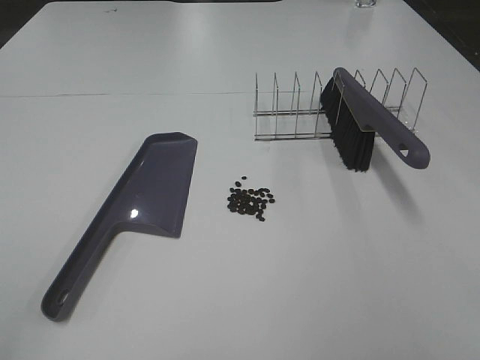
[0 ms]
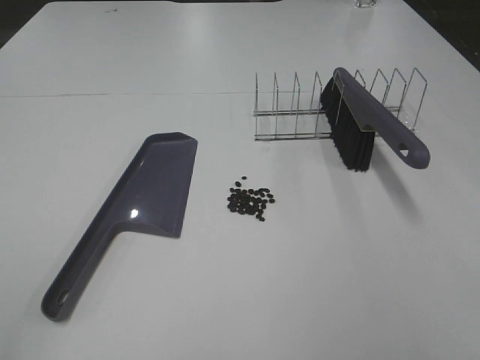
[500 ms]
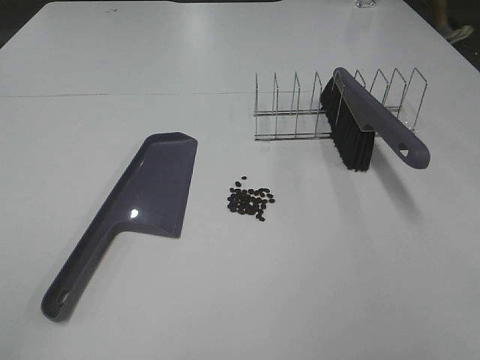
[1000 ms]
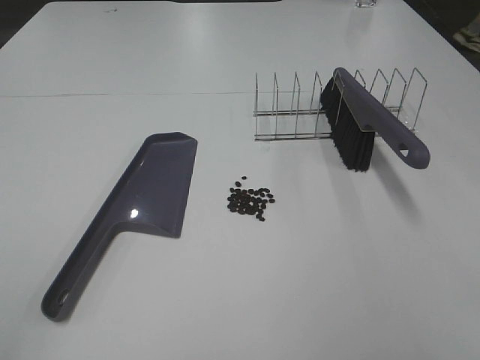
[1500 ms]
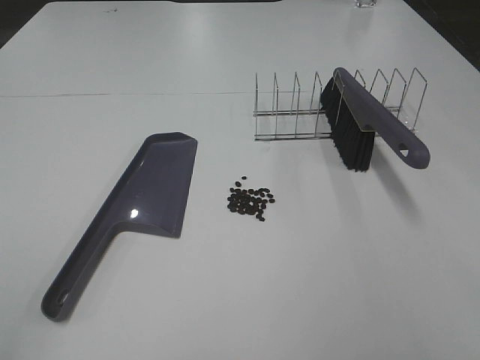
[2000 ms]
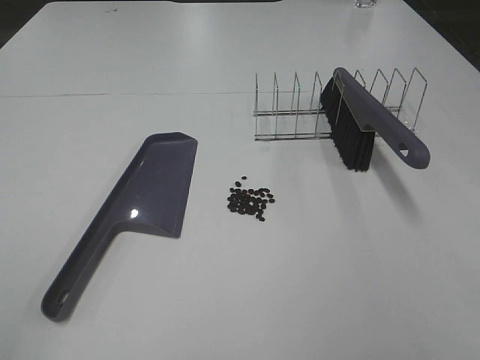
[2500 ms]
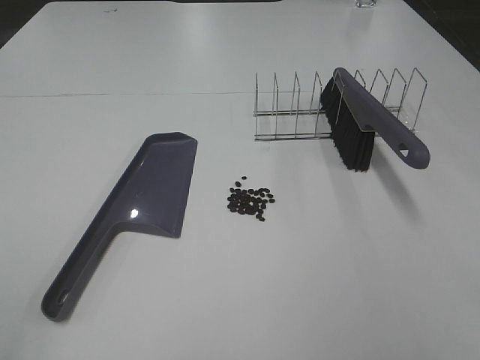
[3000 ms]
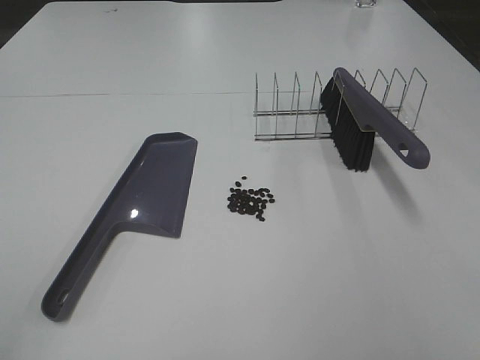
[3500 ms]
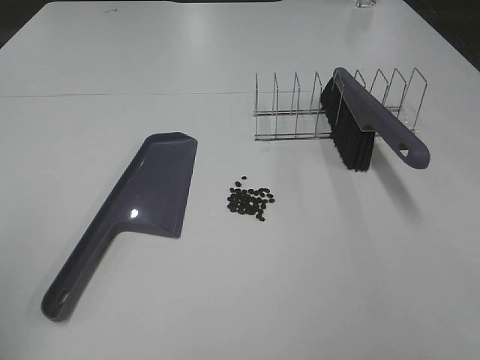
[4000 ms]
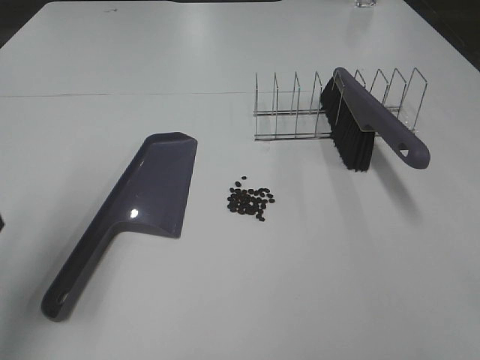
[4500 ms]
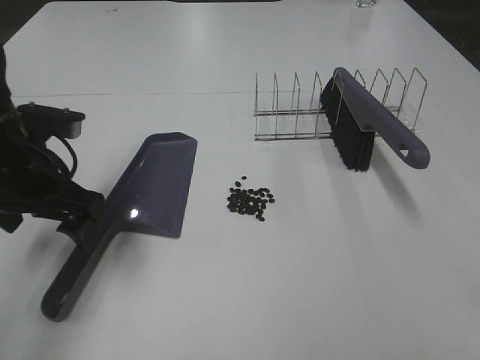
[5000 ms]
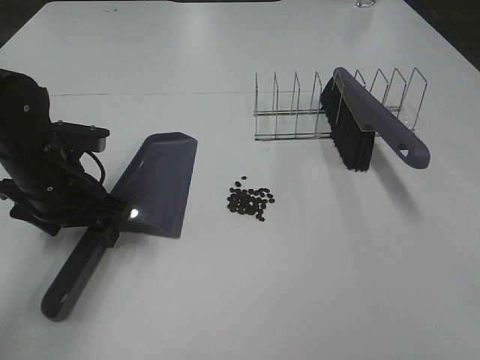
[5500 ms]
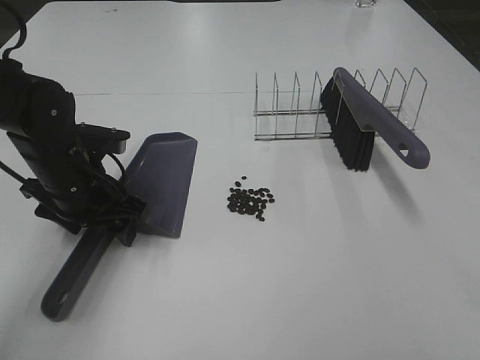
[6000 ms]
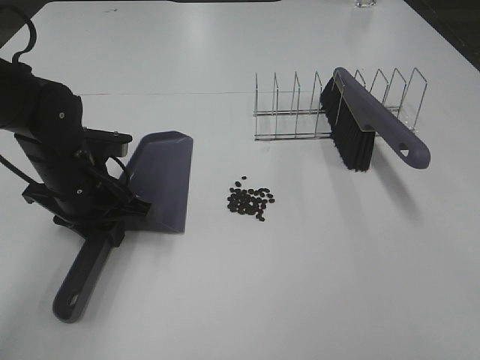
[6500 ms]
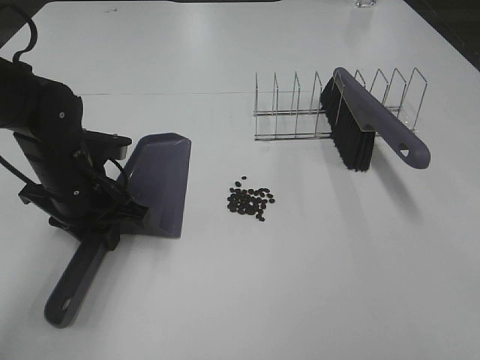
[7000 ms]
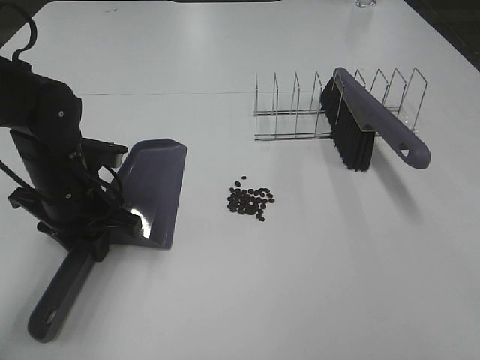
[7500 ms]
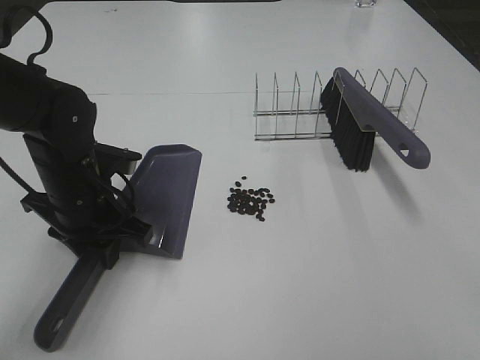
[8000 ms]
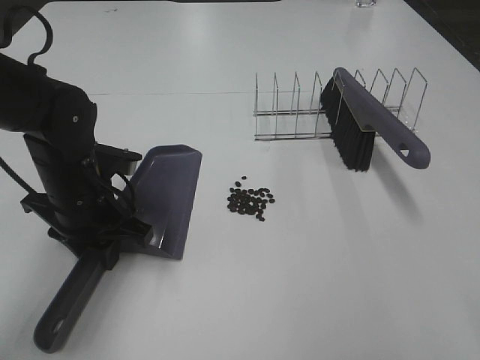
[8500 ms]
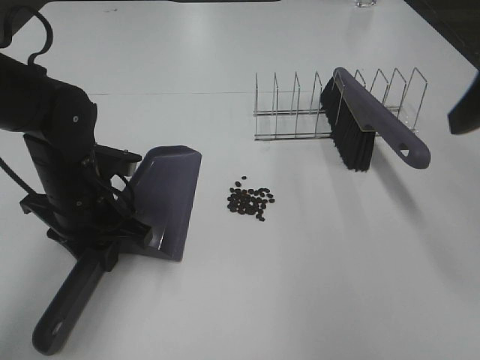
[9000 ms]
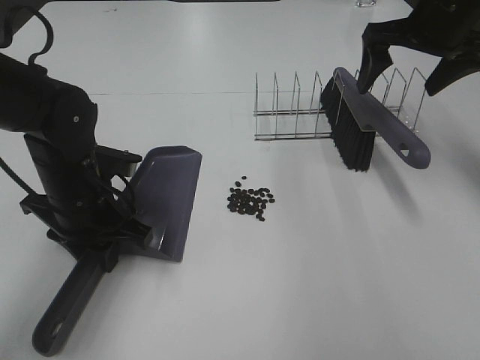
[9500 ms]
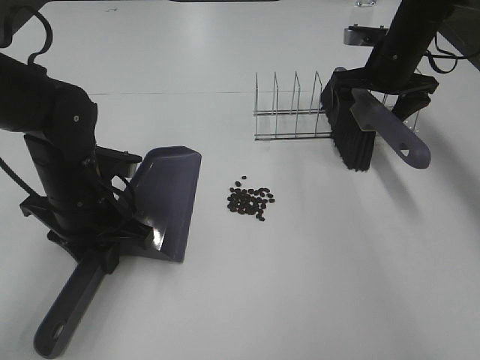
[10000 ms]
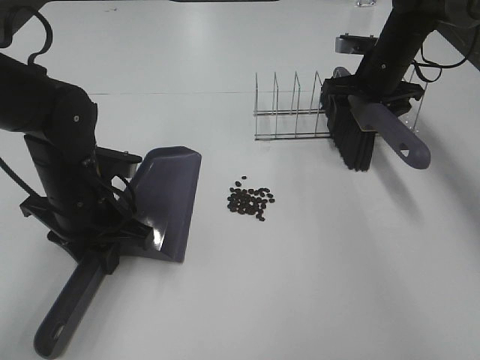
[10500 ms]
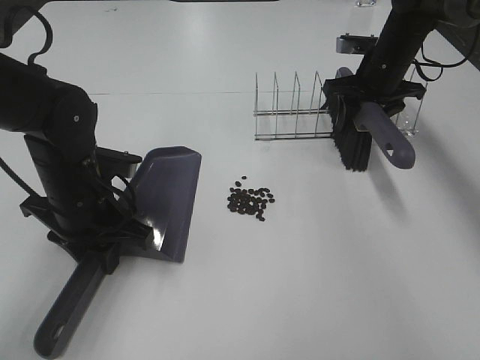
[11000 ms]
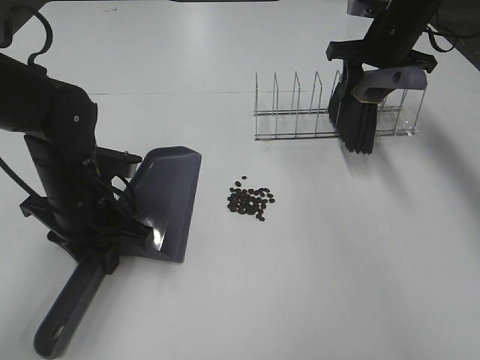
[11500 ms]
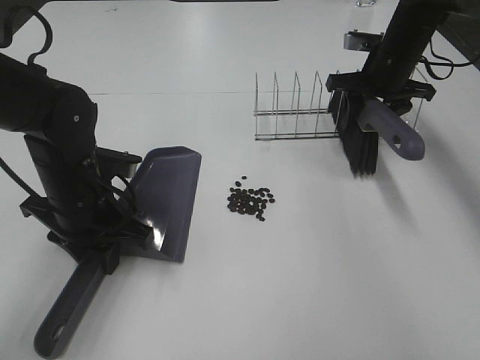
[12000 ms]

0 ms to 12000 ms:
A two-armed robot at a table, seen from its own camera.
Task of the whole recording: Sweep Coffee Bean.
Step, 0 ms to 6500 ms: Left hand: grab the dustpan.
Step, 7500 ms to 10500 ms: Right hand:grab the broom.
0 ms to 2000 ms: Both grippers stay put.
4000 ms to 6000 ms: The left gripper is displaced forward, downward and to the right by roughly 30 cm, and closes up.
6000 ms to 8000 ms: The left gripper closes.
8000 ms to 10000 ms: The right gripper travels forward by roughly 50 cm, and opens.
10000 ms to 12000 ms: The right gripper closes its fingers.

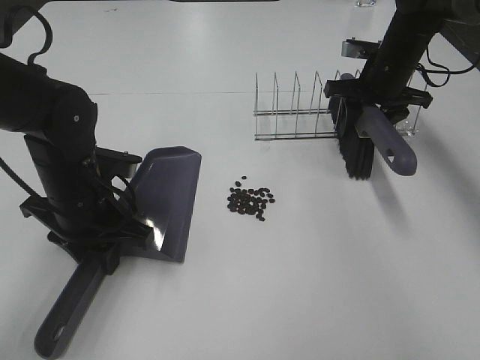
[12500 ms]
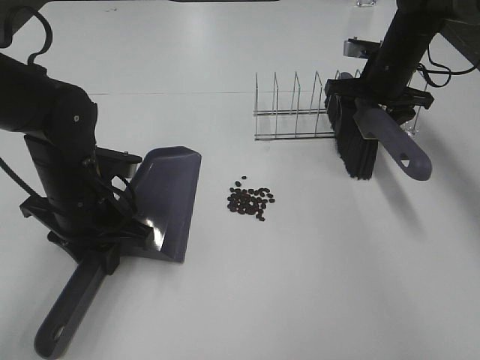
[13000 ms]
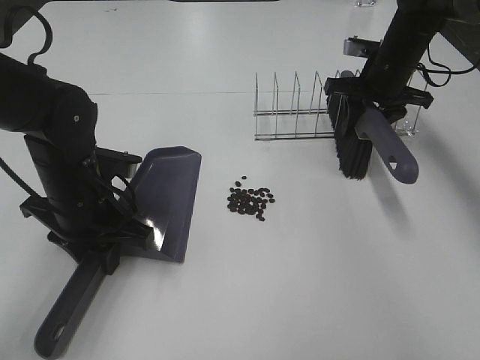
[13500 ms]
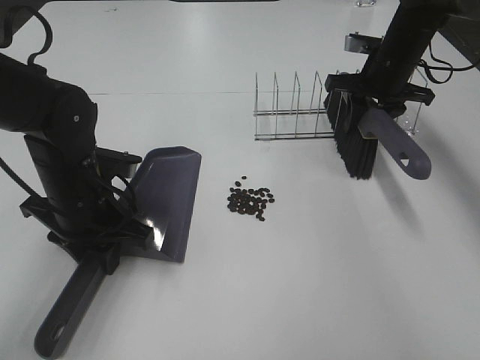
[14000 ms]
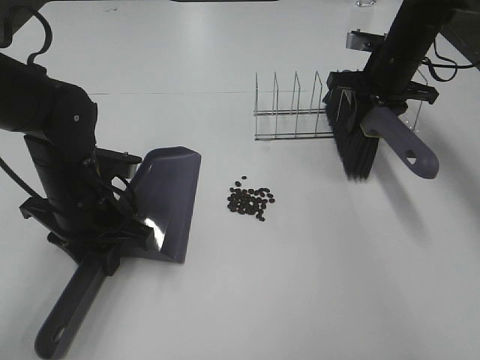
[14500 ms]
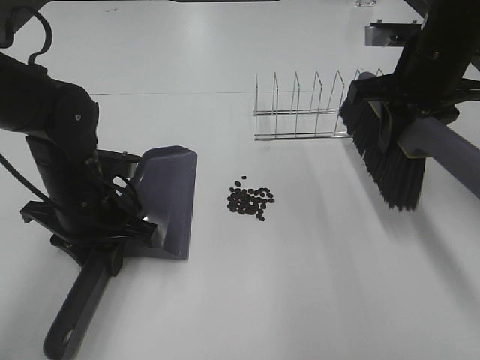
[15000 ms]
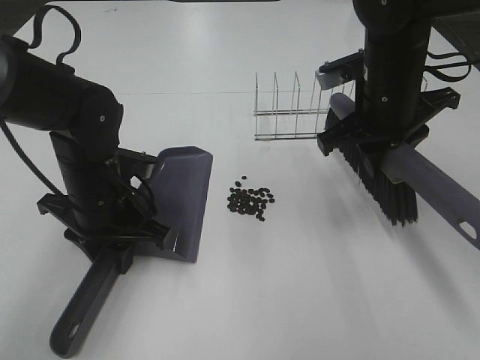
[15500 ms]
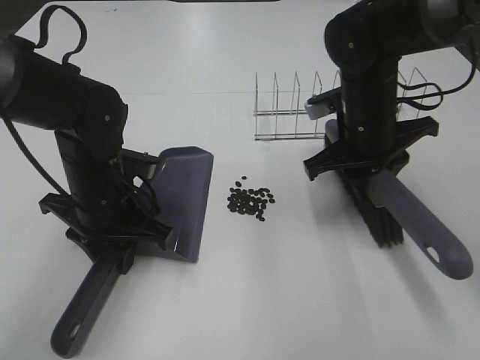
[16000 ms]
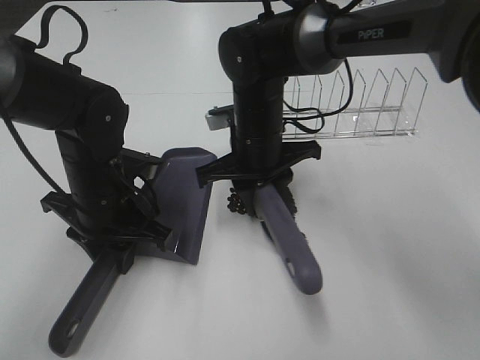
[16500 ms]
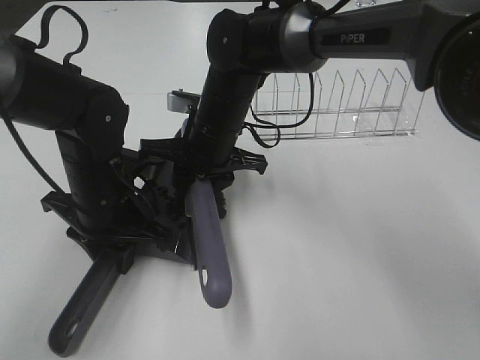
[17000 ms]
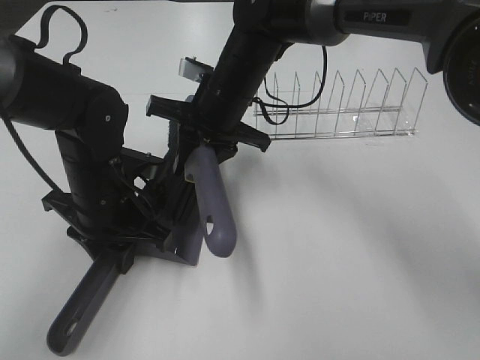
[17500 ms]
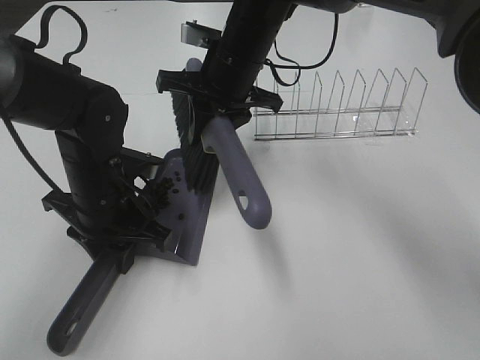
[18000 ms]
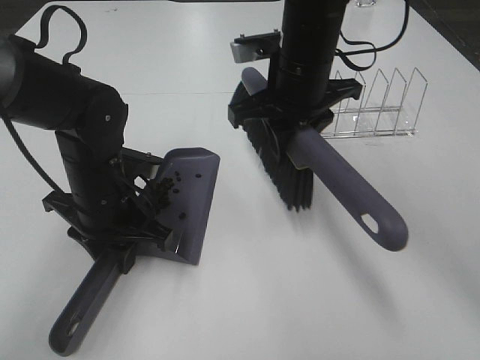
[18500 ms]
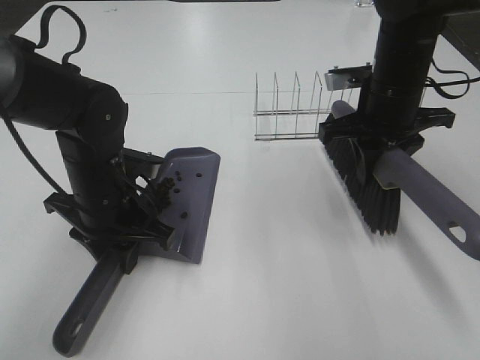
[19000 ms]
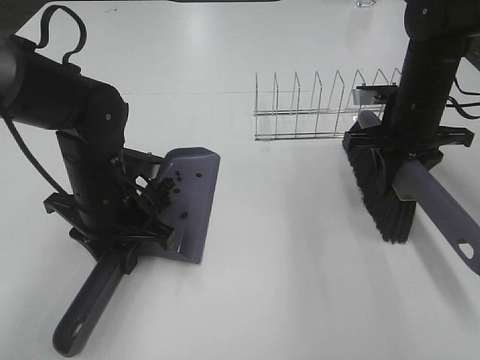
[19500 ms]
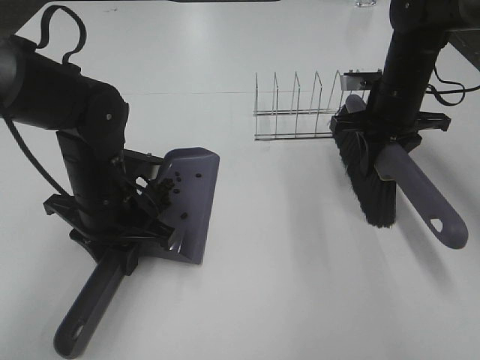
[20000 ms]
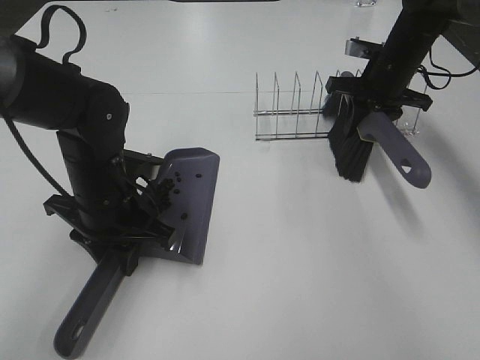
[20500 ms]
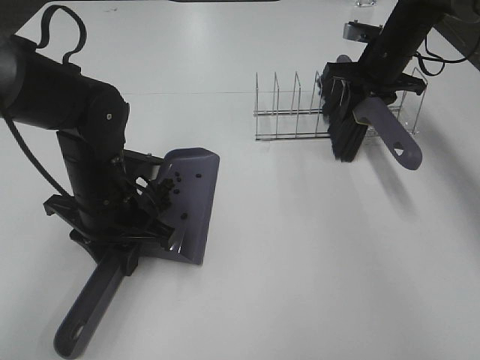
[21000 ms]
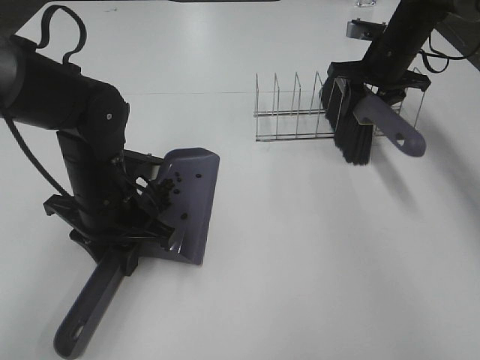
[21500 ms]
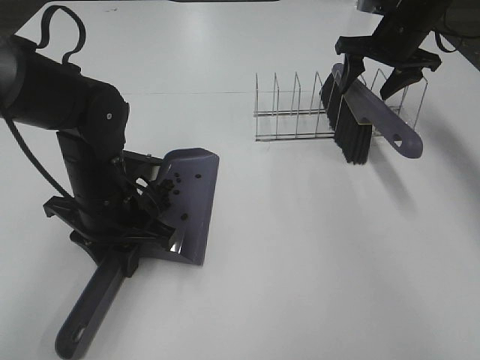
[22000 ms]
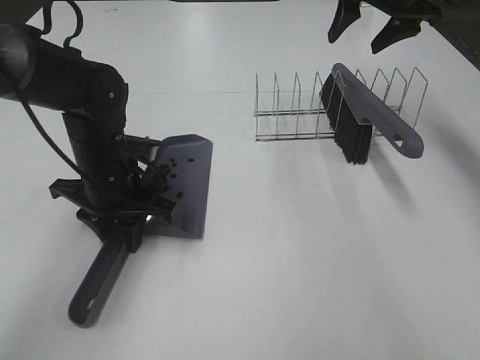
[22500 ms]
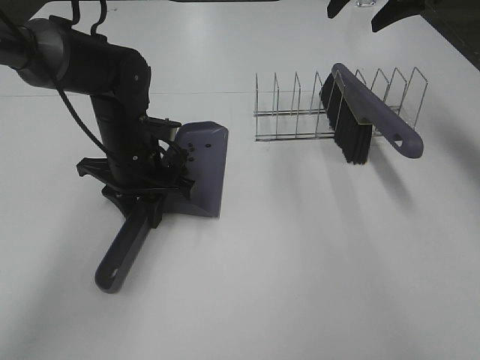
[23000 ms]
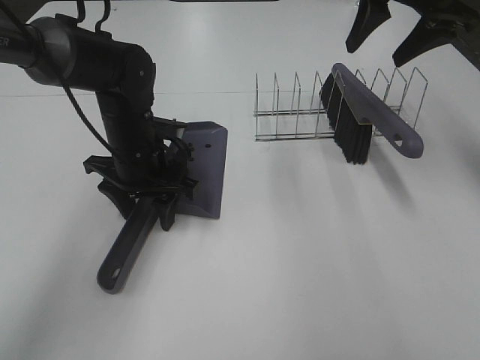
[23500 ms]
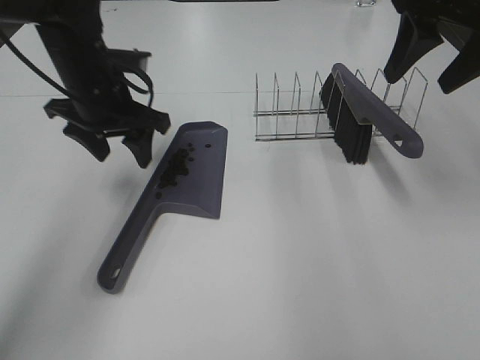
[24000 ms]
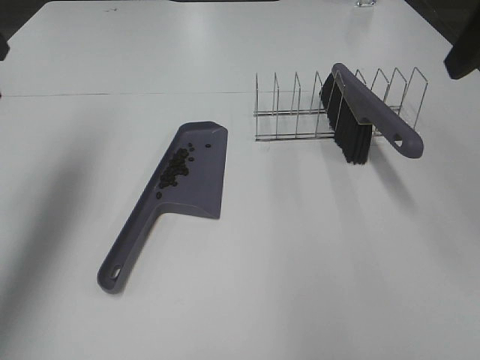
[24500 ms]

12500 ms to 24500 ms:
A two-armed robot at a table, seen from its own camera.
Task of the whole recording: Sweep Coffee Bean.
Step, 12500 ms to 17000 ms: Right hand:sweep the coffee beans into the dustpan.
Step, 17500 ms to 21500 ms: Right hand:place the broom on the rack.
Step, 22000 ms to 23500 ms: Left hand:place the dustpan on the table.
12500 ms to 14500 ms: The grippers make only small movements.
14500 ms to 16500 ms: The right gripper goes about 25 cm to the left and backward.
16500 ms to 18500 ms: The right gripper travels upward and to the right by roughly 10 cm.
18500 ms to 20500 ms: The right gripper goes about 20 cm to the right and forward.
20500 ms to 22500 ms: The right gripper shifts some 15 cm upward, and opens its fingers.
22500 ms to 24500 ms: The right gripper shifts roughly 25 cm backward. The left gripper moves upward and to the left, roughly 25 cm, and opens up.

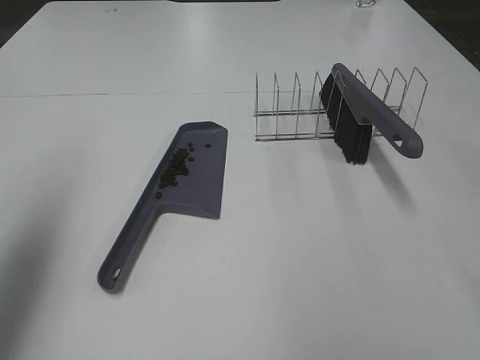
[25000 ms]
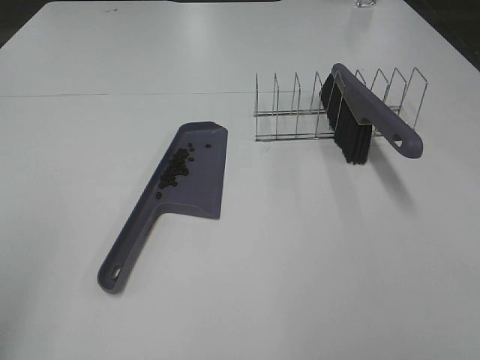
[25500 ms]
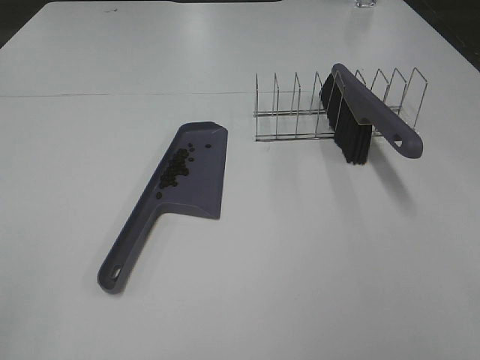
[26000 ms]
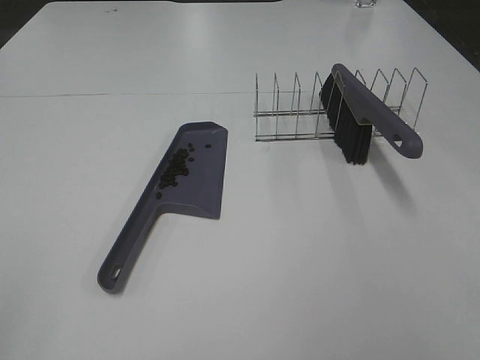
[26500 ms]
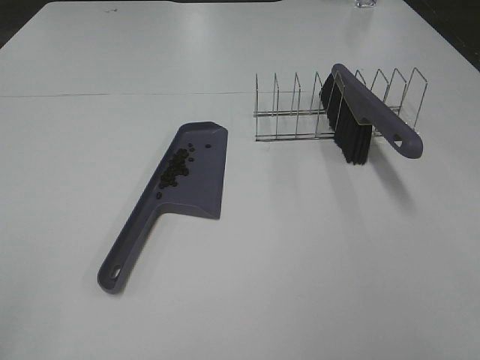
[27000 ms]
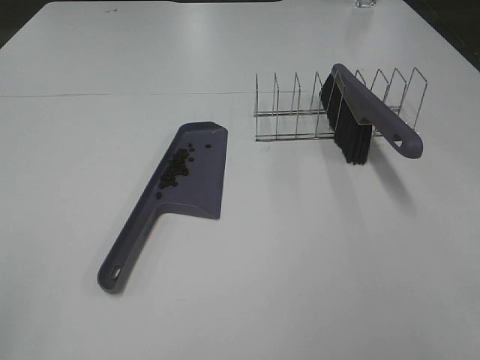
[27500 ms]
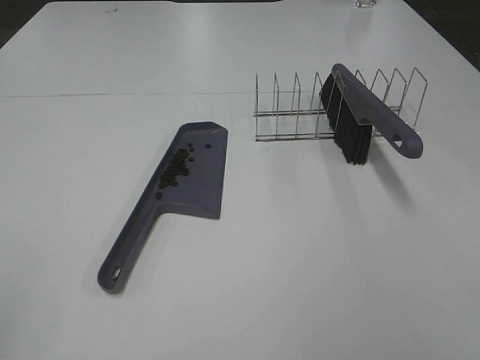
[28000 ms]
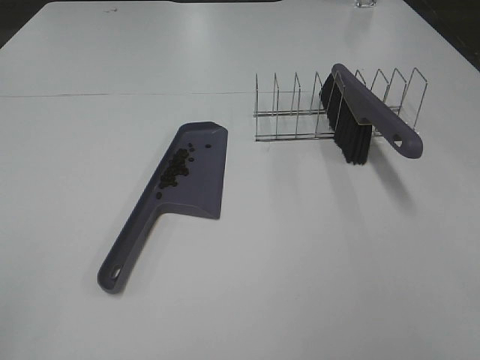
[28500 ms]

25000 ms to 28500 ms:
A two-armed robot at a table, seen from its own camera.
Task of the whole recording: Sweep Coffee Bean.
25000 ms to 27000 ms: The left gripper shifts approximately 20 cm backward.
27000 ms to 28500 ms: Both grippers stay put.
